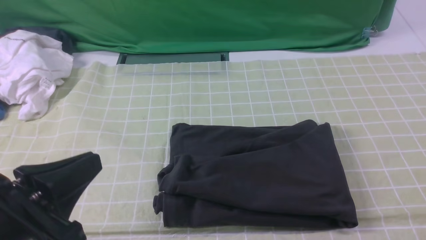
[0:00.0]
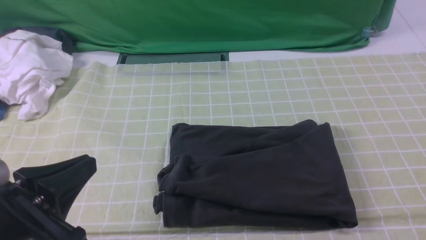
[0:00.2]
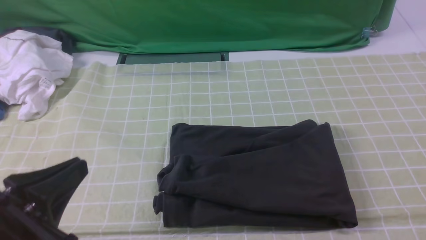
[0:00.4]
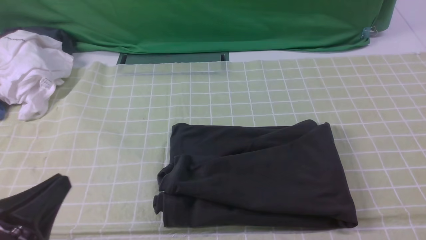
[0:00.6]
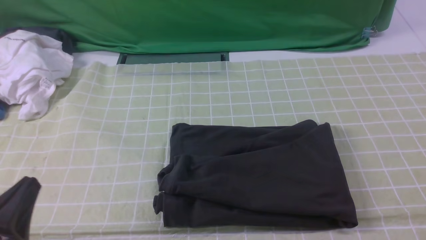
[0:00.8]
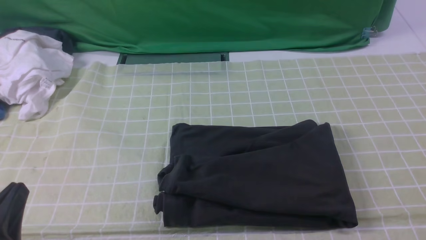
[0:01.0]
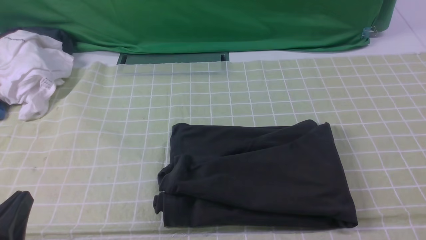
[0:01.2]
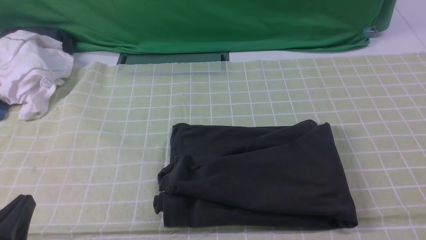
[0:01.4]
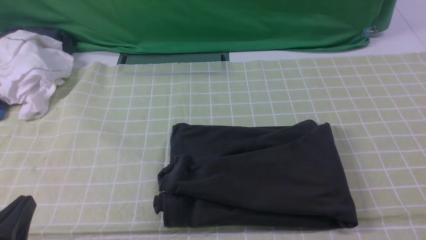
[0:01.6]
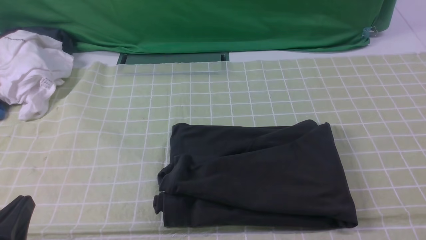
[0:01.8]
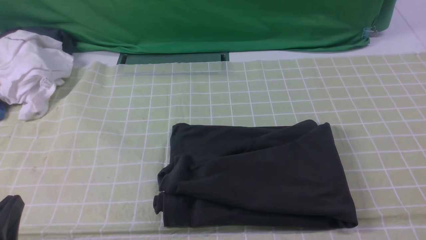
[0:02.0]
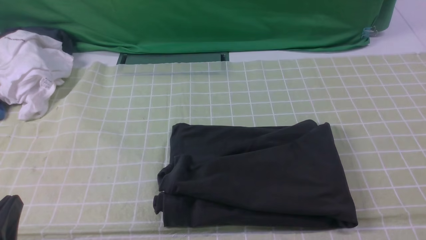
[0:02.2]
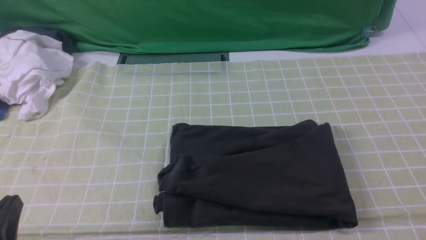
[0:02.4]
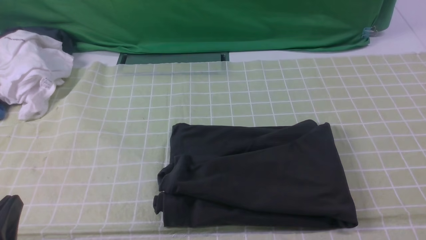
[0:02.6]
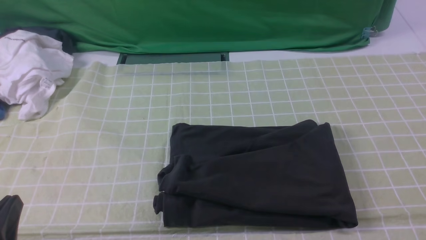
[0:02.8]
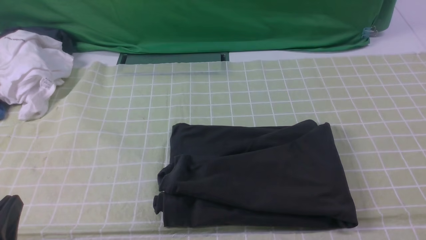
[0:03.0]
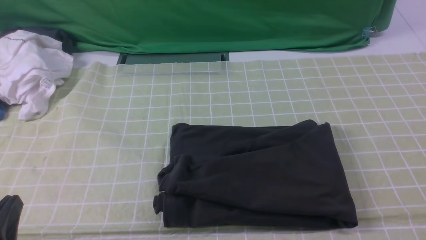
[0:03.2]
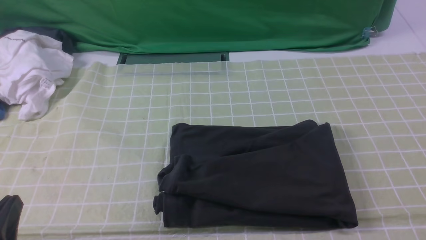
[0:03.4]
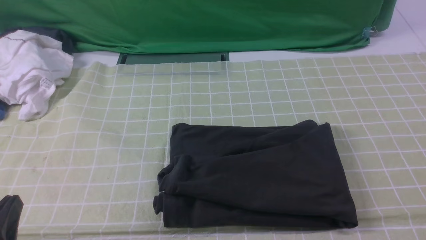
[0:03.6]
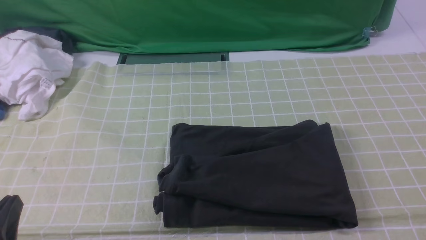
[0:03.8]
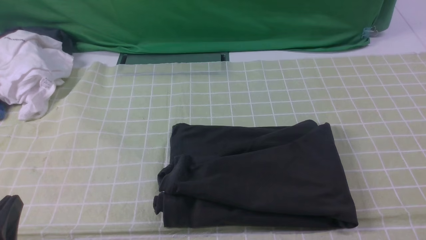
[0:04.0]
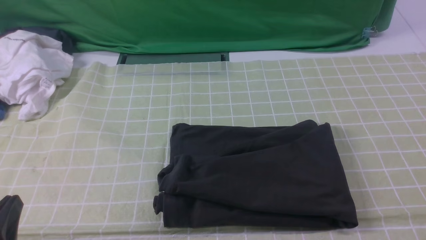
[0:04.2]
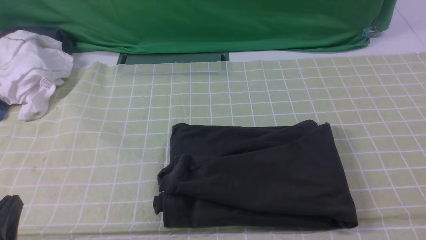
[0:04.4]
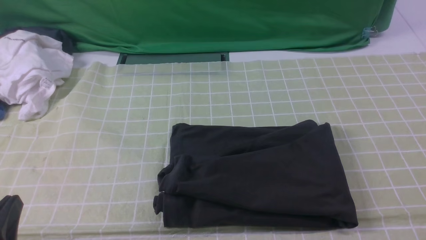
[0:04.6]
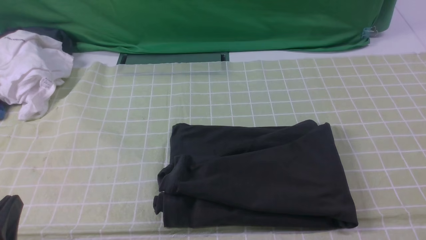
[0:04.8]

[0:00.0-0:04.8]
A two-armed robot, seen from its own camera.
0:00.0 to 0:01.6: The left gripper goes about 10 cm downward.
0:01.6 to 0:04.8: Both grippers stay put.
